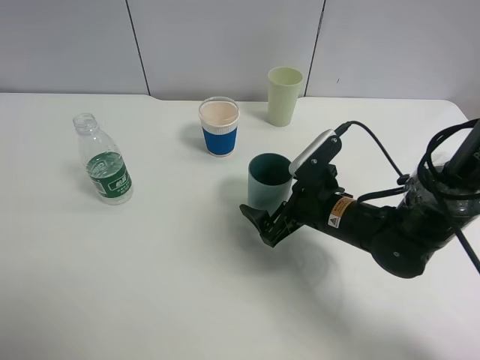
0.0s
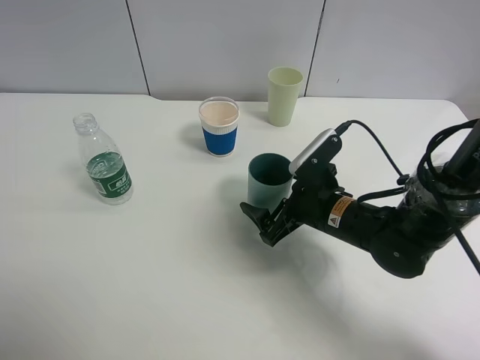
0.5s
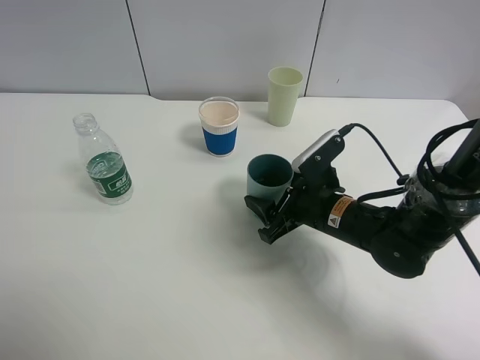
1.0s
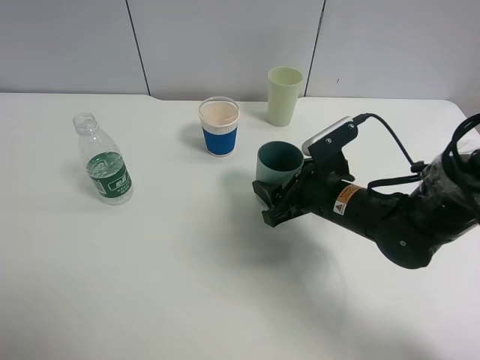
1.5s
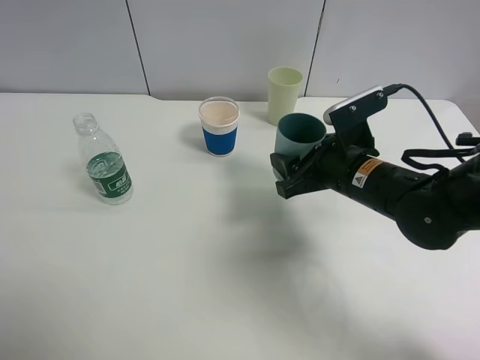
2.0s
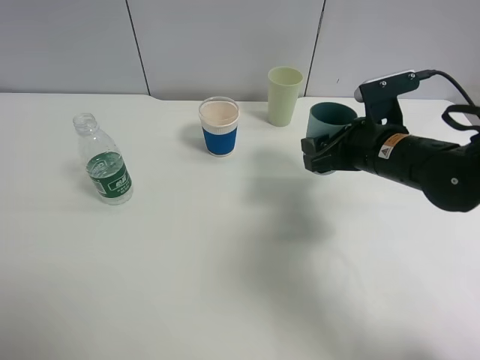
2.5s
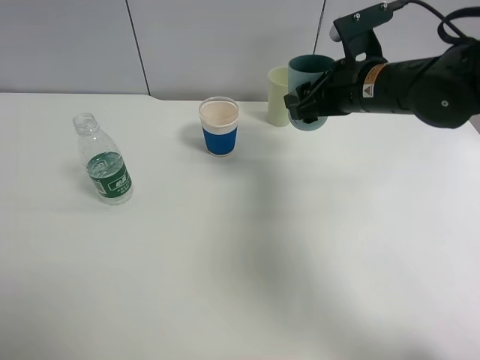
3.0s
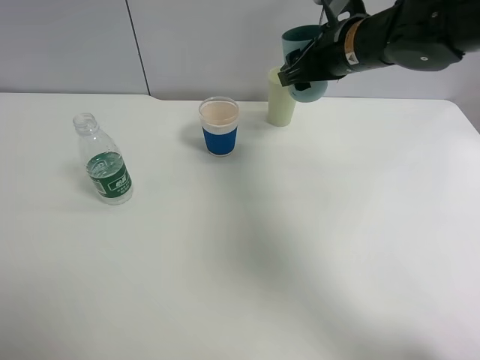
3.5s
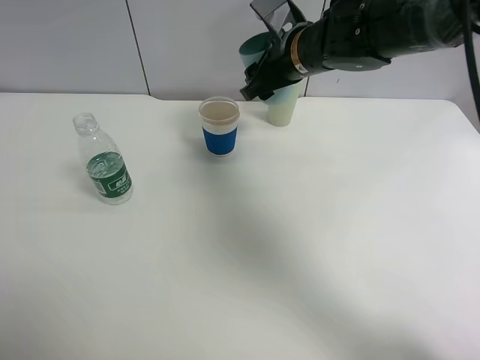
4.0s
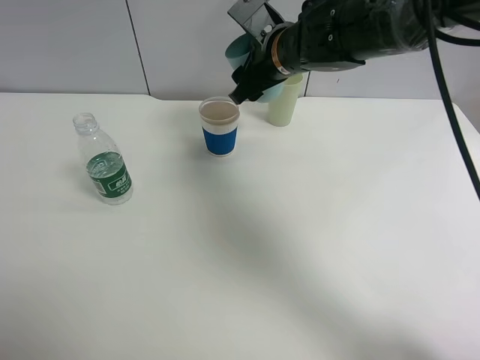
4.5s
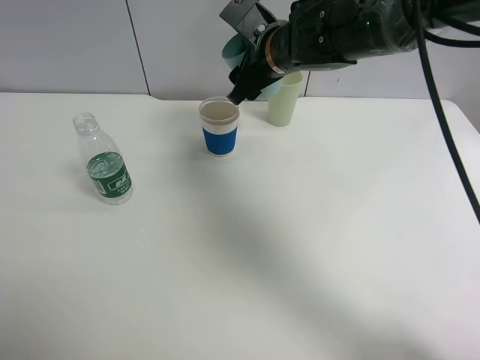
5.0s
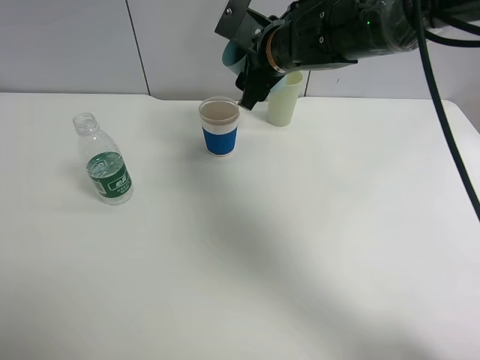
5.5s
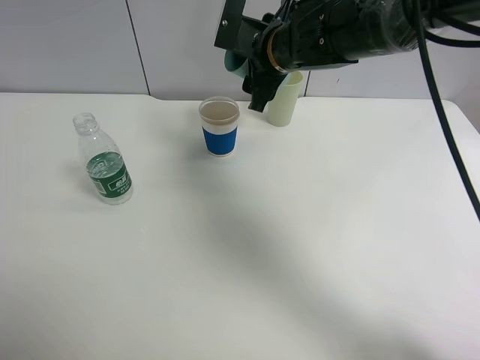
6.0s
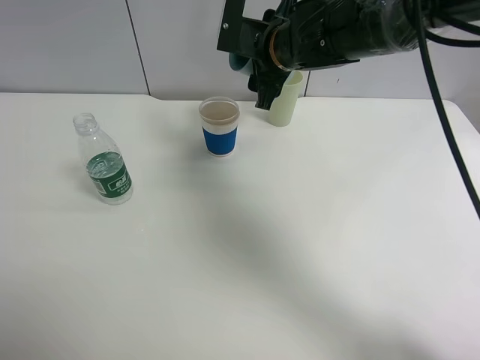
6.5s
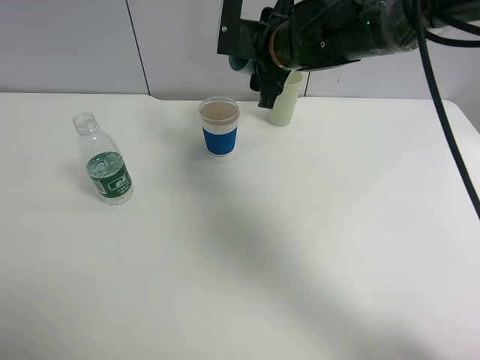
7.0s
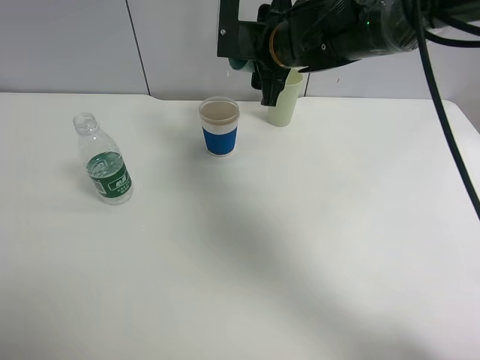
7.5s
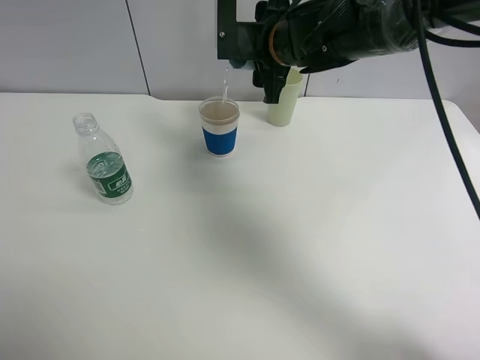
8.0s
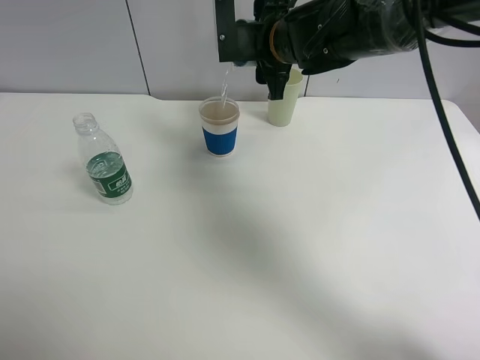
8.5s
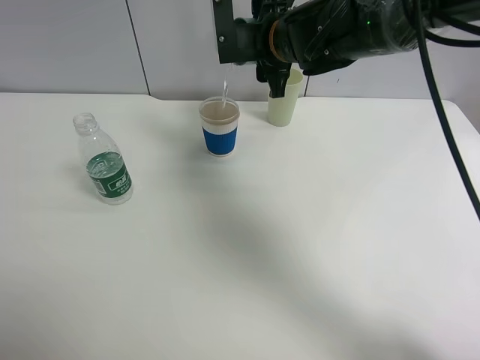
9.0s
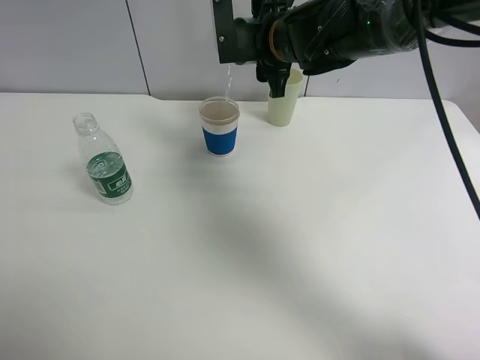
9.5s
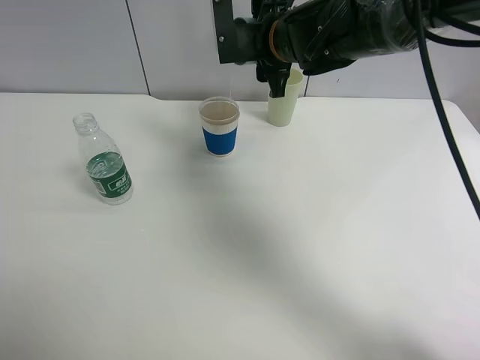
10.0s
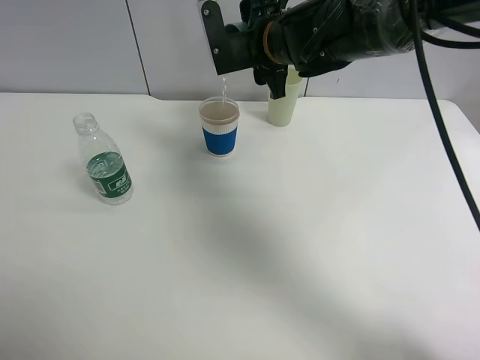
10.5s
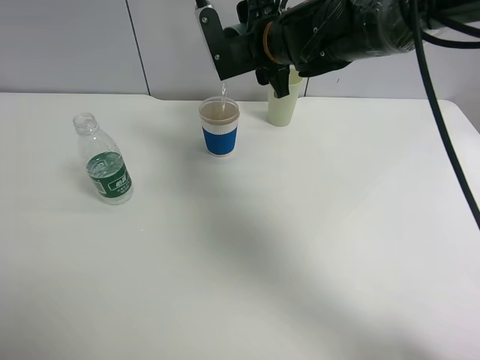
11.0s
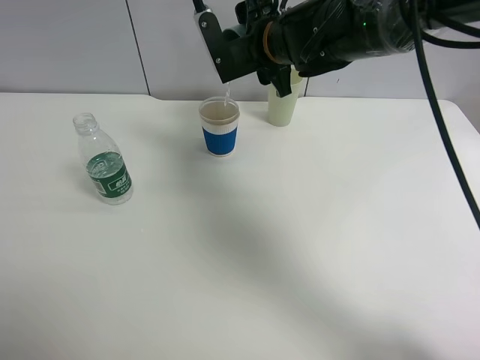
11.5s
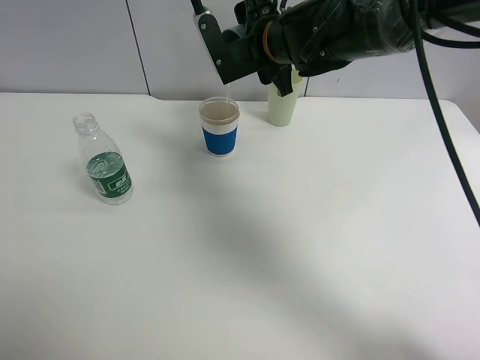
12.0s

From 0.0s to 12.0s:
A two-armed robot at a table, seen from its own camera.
Task of the whole recording: use a clamp to hold the bottle of the drink, pour the beverage into a random cup, then clamp the cup containing the drink and pour the drink into another random cup.
From 0.0s to 2.0s: The right gripper travels upward by roughly 5 cm, and closes up.
From 2.0s to 4.0s: The right gripper travels forward, upward and to the left by about 15 cm.
From 6.0s to 8.0s: The grippers stay close to where they were, moving slightly.
From 8.0s to 10.0s: There are only small adjustments of the grippers.
From 10.0s to 12.0s: There are only small adjustments of the grippers.

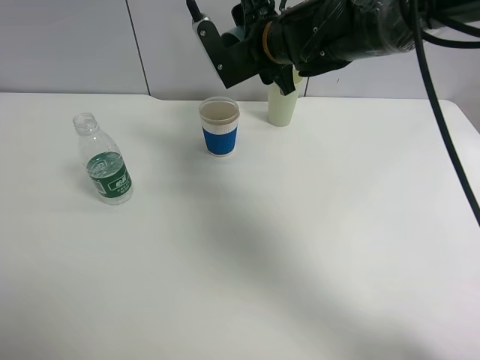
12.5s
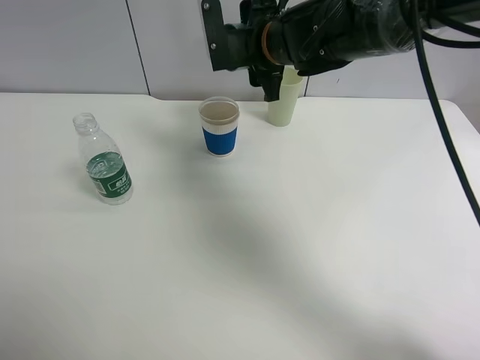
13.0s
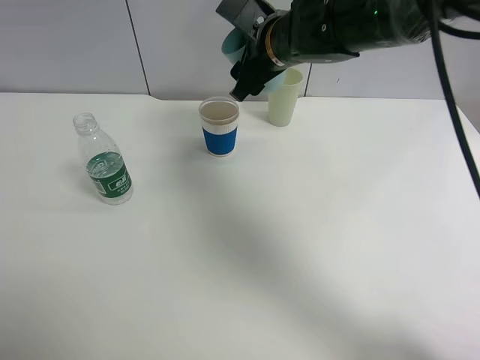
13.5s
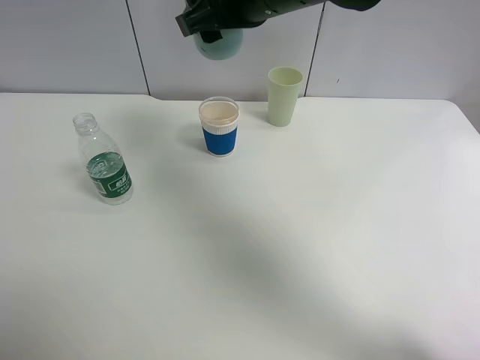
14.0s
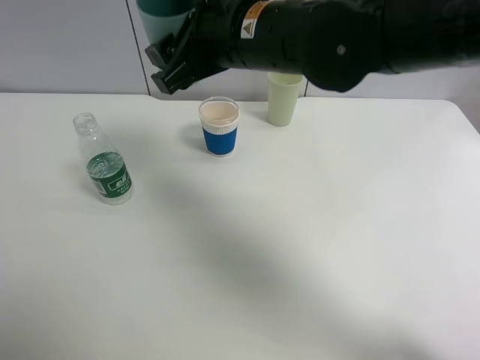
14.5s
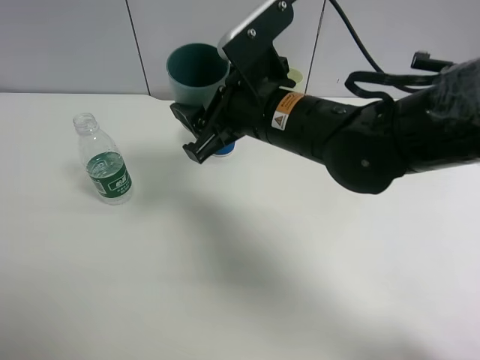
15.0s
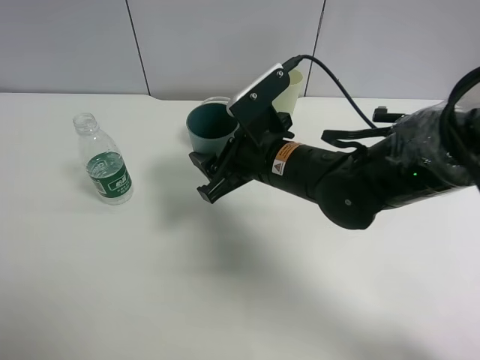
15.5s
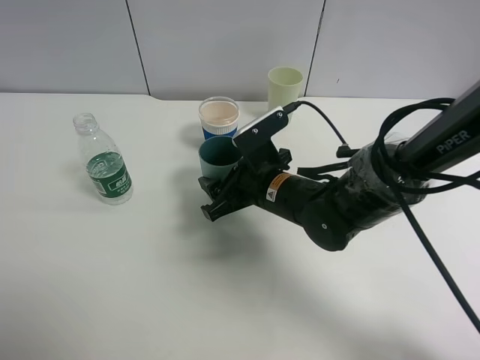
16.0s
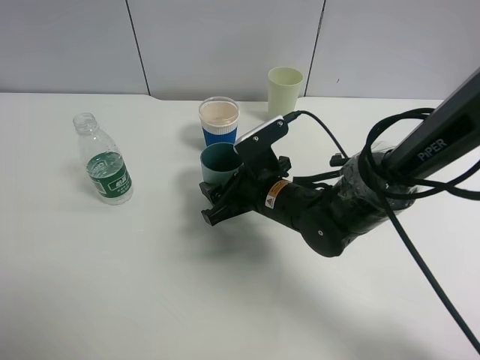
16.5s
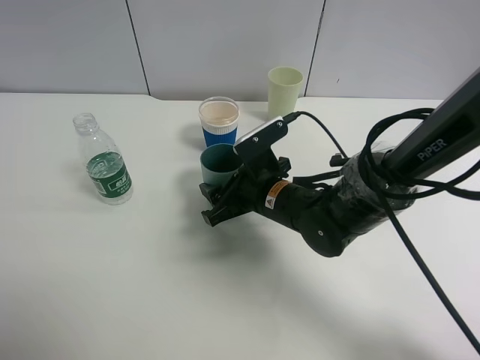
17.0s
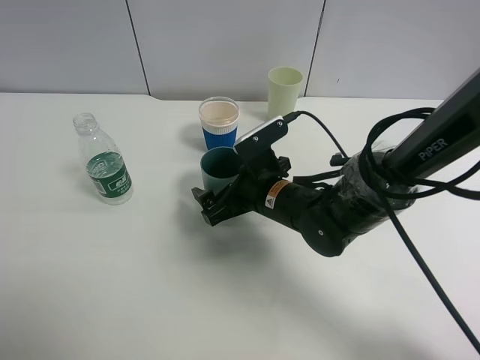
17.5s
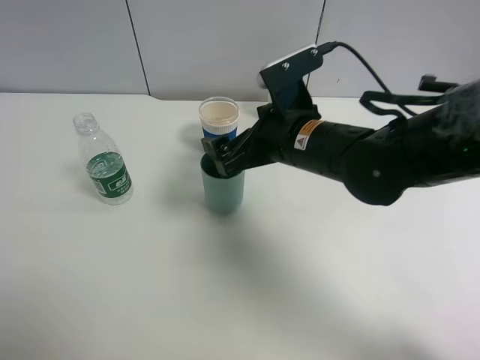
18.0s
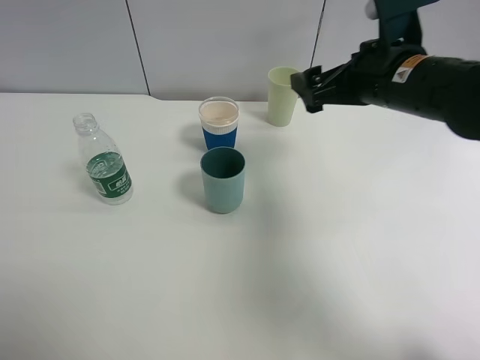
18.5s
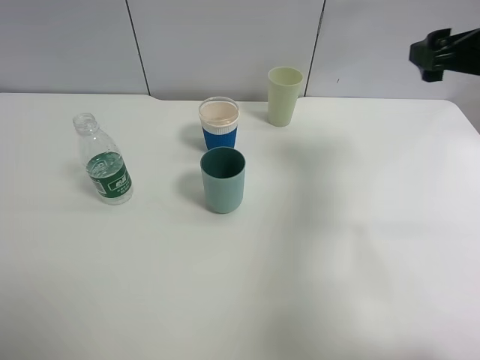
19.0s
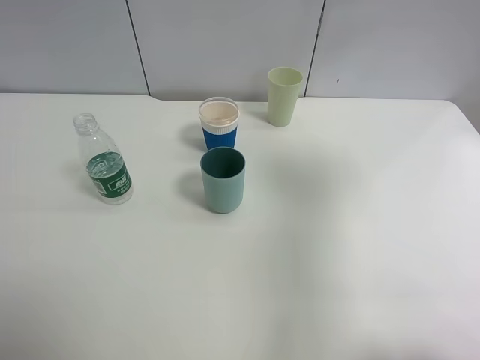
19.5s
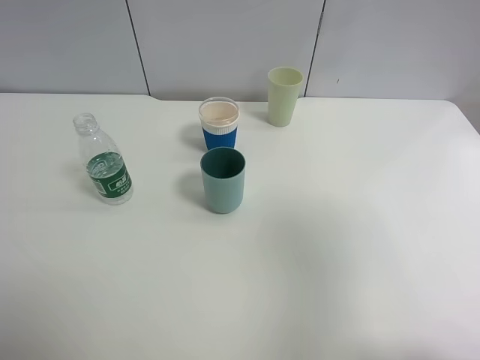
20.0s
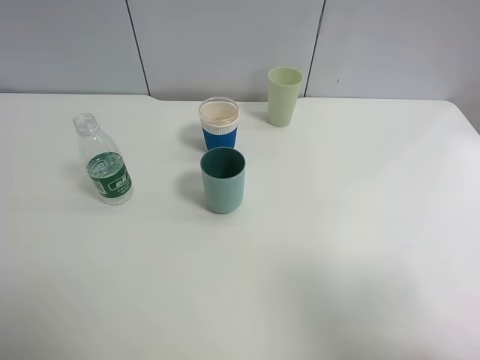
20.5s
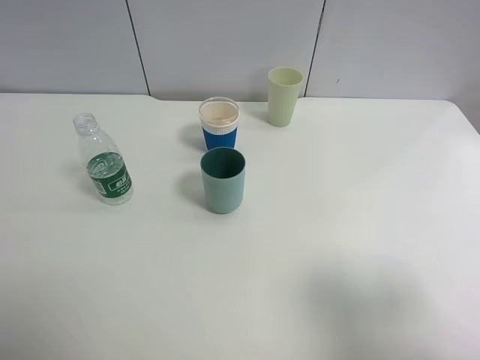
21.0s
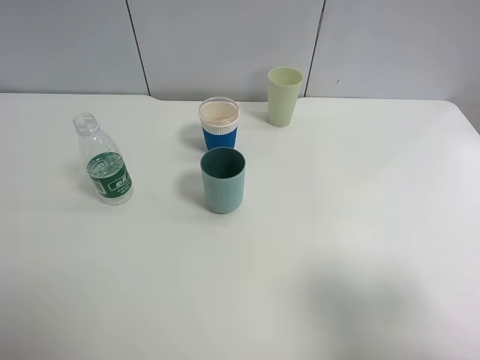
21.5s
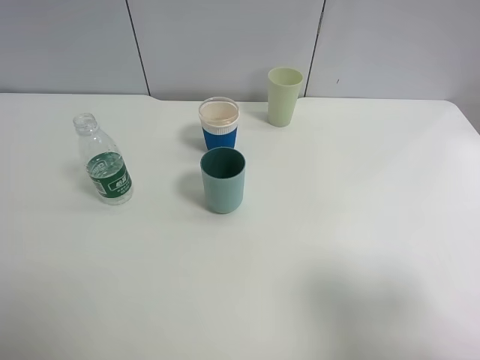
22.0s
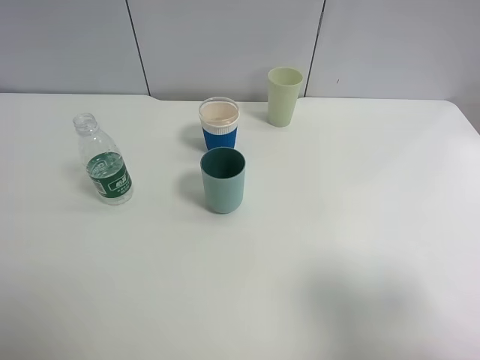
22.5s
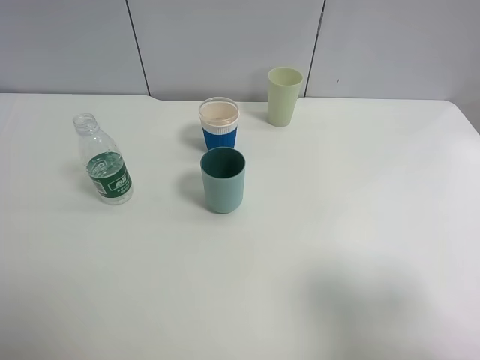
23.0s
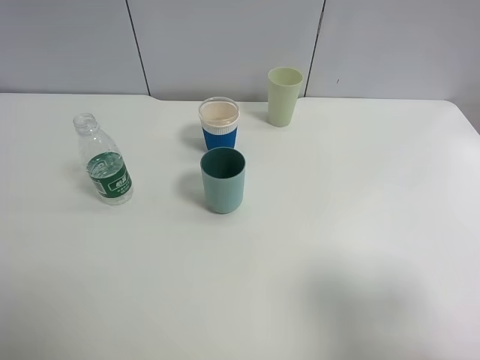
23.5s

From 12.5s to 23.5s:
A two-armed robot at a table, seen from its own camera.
Task of the whole recording: use a clamp to hold the bottle of the drink, pour the beverage into a random cup, then clamp the cup containing the drink and pour the drink into another random cup.
Step, from 13.5s to 17.5s: Place the blue plastic cup on the table with right gripper.
From 12.5s to 14.5s: The right gripper moves backward, approximately 10 cm.
From 14.5s to 16.0s: The right gripper moves downward, roughly 20 cm.
From 16.0s to 18.0s: The right gripper travels upward by approximately 10 cm, and opens its fingers.
From 18.0s to 20.0s: The right gripper moves to the right, backward and upward, about 35 cm.
From 20.0s to 21.5s: The right gripper travels downward by approximately 10 cm.
From 21.5s to 23.5s: The two grippers keep their place.

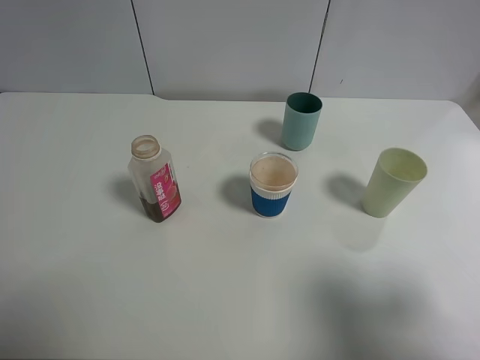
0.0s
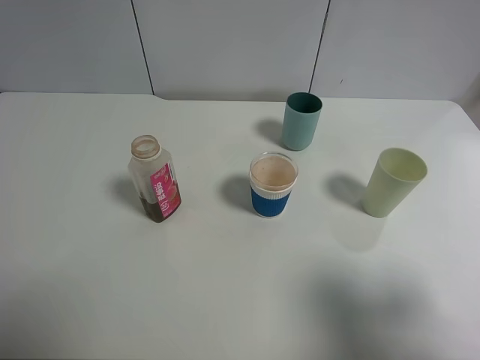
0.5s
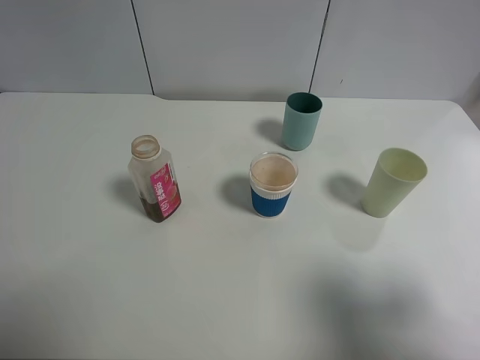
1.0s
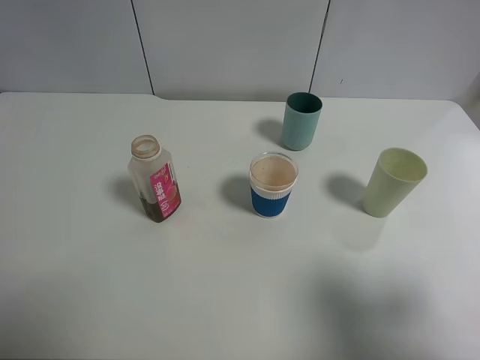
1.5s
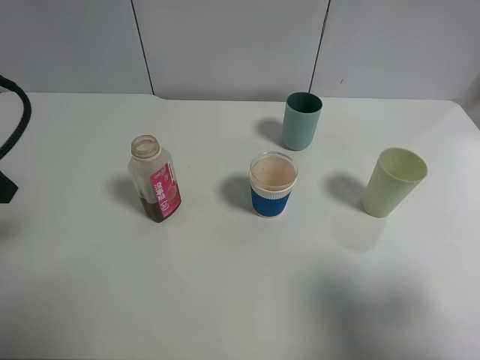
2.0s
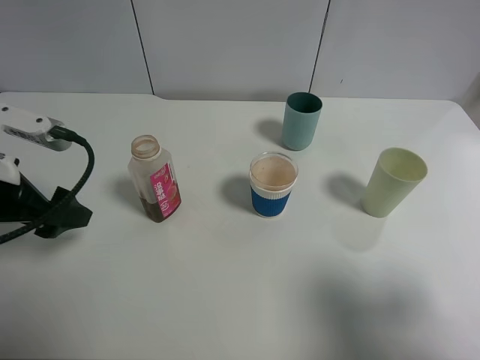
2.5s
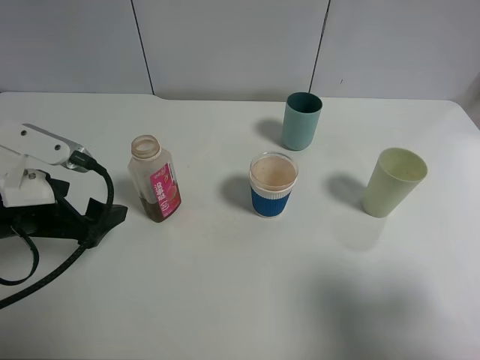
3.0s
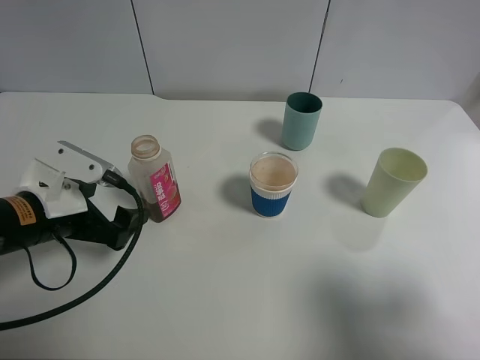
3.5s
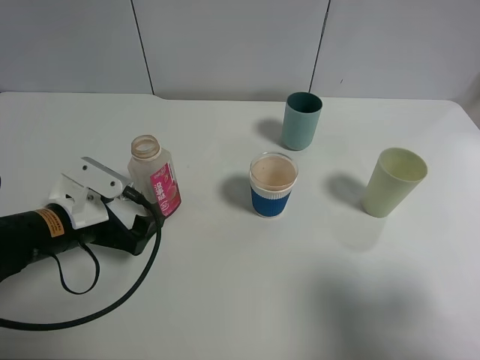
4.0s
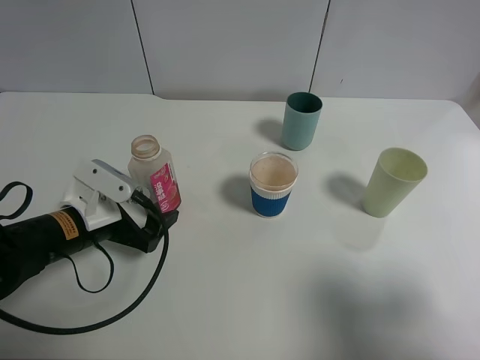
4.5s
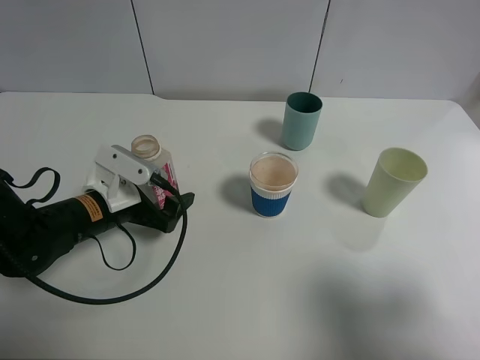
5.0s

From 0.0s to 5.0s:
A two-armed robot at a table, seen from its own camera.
Task of the whole recording: use a clamp to hold the bottle of the drink, pour the beverage into a random cup, then clamp the cup containing the drink and pour the drink into another random cup.
From 0.0s to 2.5s: The left gripper is displaced forward and downward by roughly 20 cm.
From 2.5s to 5.0s: The left gripper moves downward, to the right and forward, approximately 15 cm.
